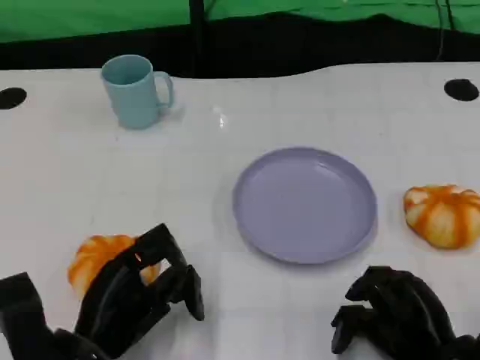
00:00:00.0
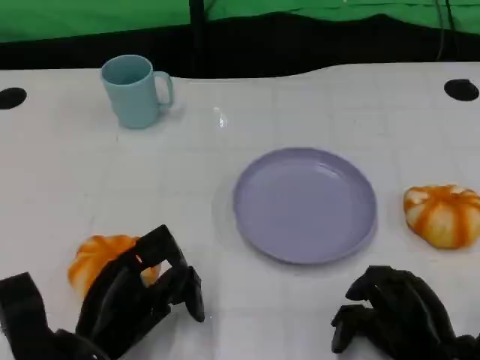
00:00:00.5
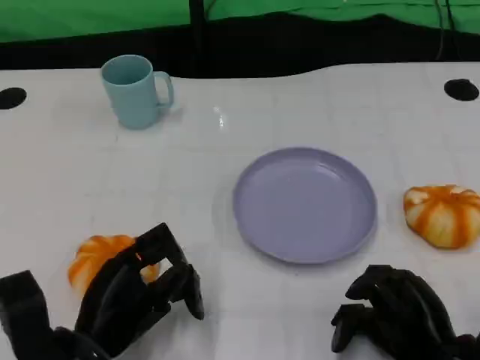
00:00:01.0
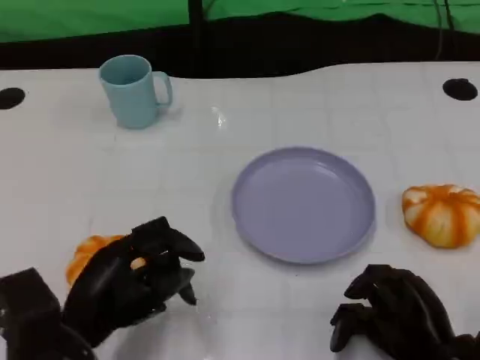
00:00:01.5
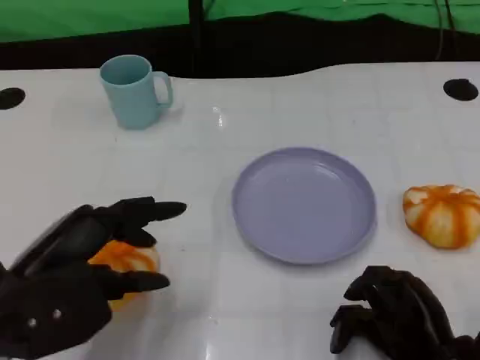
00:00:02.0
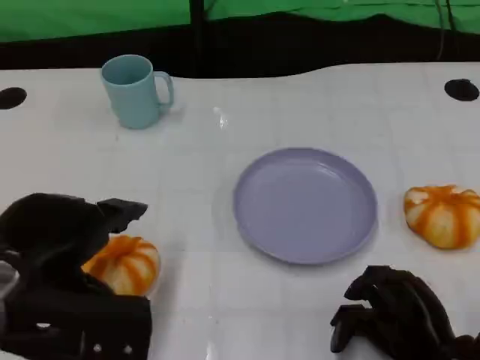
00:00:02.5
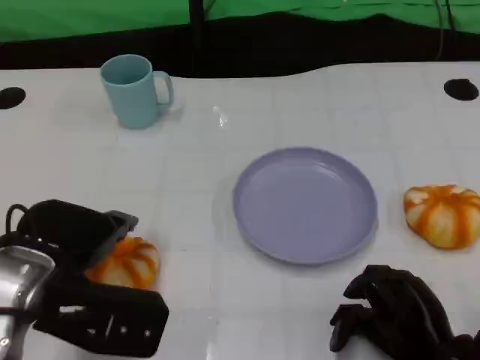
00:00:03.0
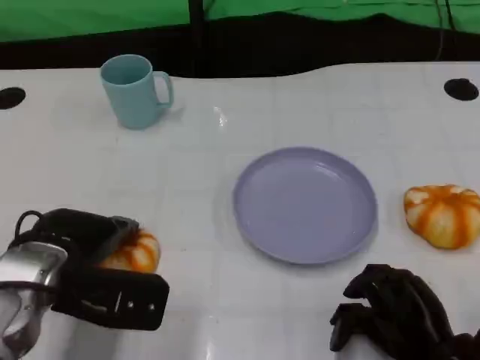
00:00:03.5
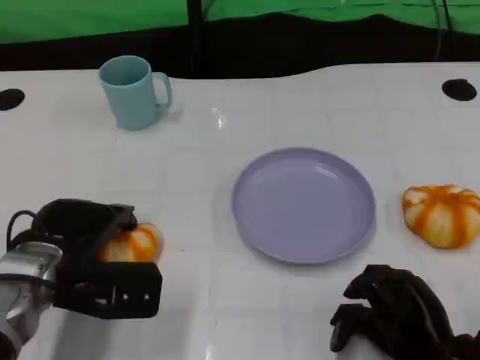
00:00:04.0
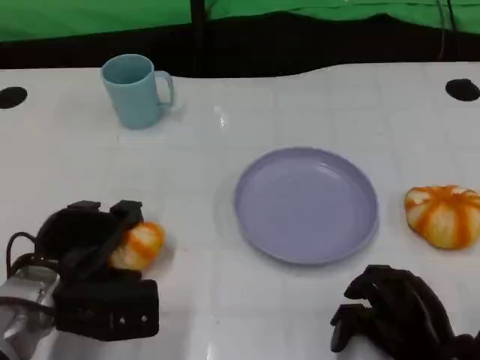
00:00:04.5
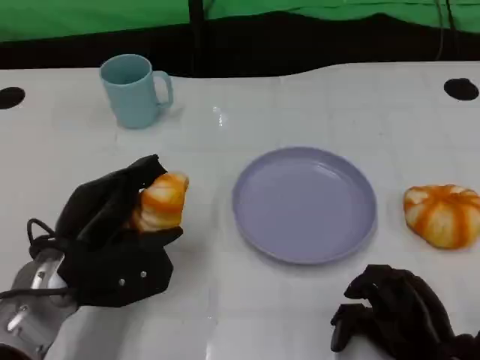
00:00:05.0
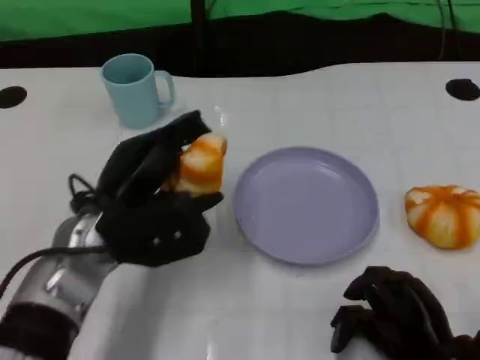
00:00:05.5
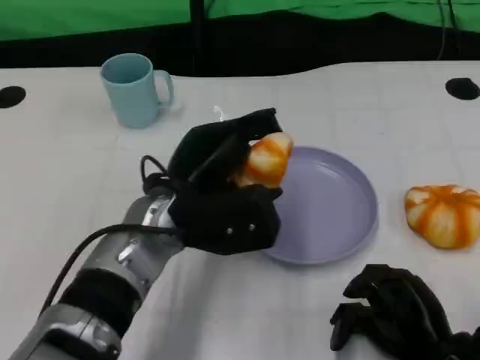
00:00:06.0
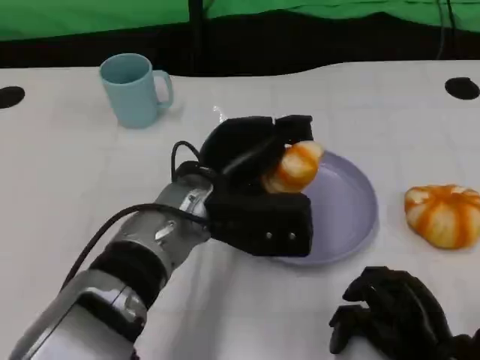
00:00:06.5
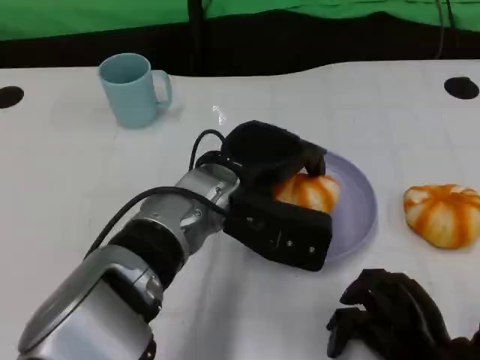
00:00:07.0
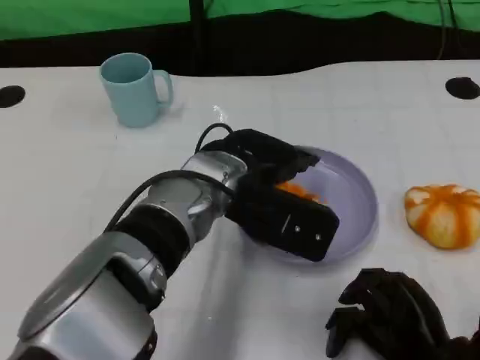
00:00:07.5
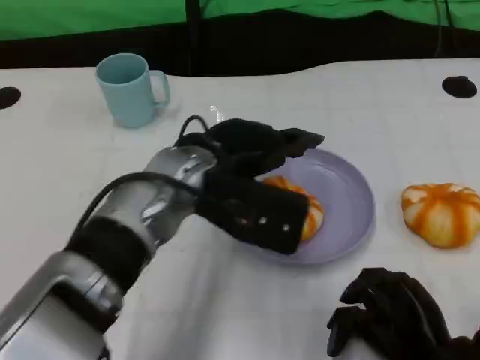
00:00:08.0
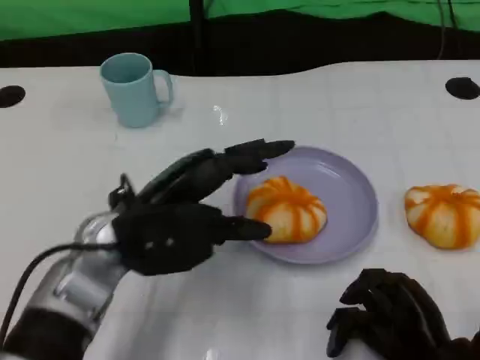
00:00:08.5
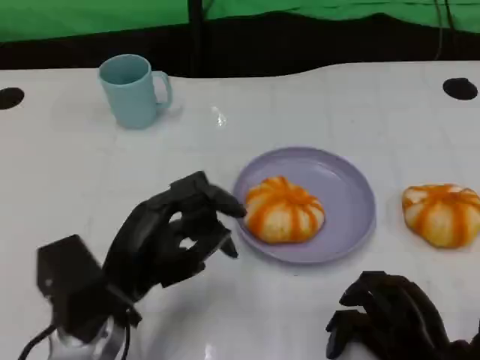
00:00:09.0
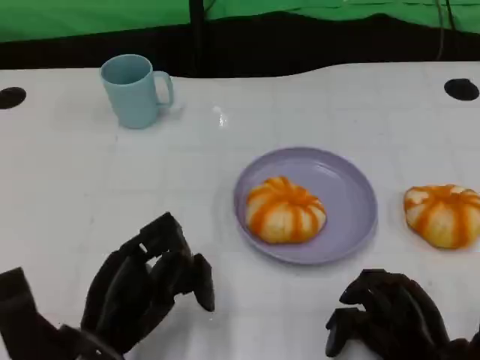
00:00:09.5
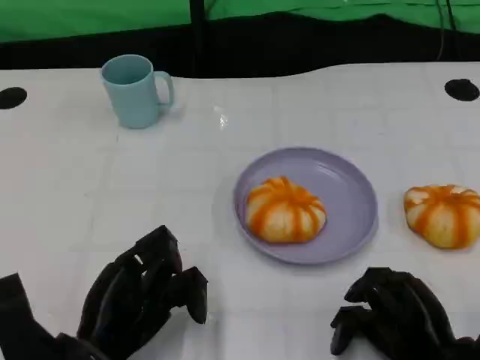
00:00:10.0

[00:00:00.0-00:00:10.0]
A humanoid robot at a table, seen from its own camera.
Task of the whole recording: Grasp the bread from the table and place it into the plate.
00:00:00.0 to 00:00:02.0: The left hand goes roughly 10 cm upward.
00:00:02.0 to 00:00:04.0: The left hand heads forward and downward, covering about 10 cm.
00:00:04.0 to 00:00:06.0: The left hand moves to the right, approximately 15 cm.
00:00:08.0 to 00:00:10.0: The left hand shifts some 20 cm backward, downward and to the left.

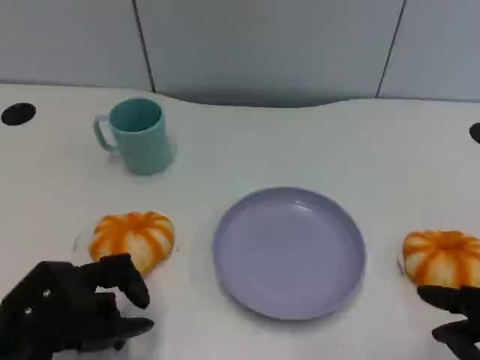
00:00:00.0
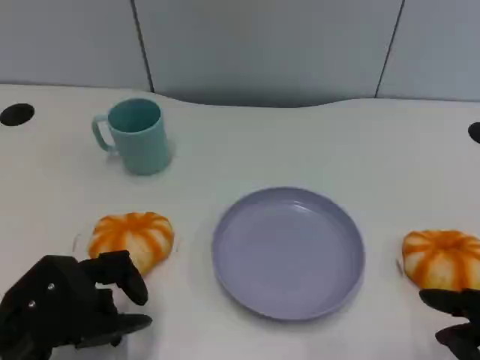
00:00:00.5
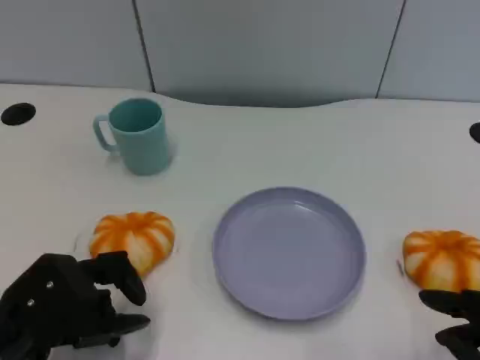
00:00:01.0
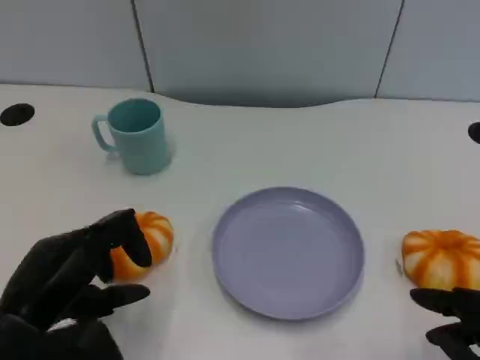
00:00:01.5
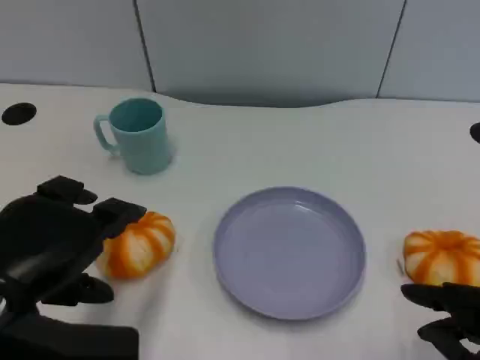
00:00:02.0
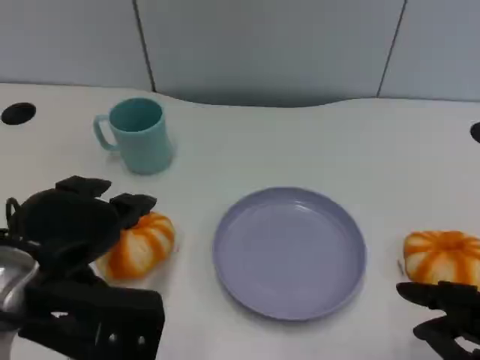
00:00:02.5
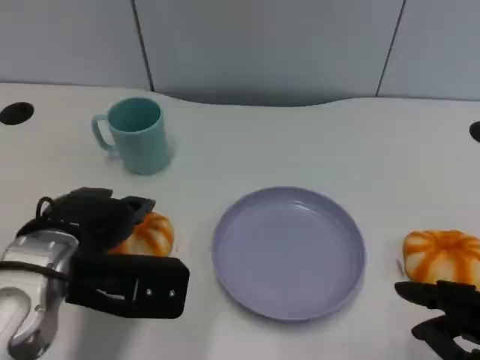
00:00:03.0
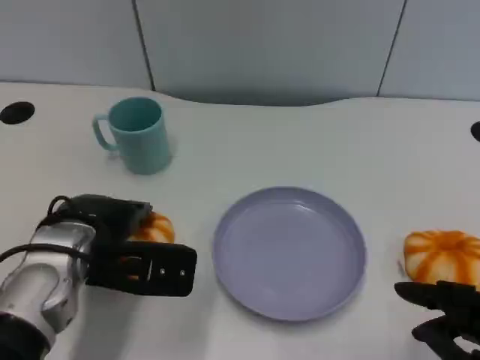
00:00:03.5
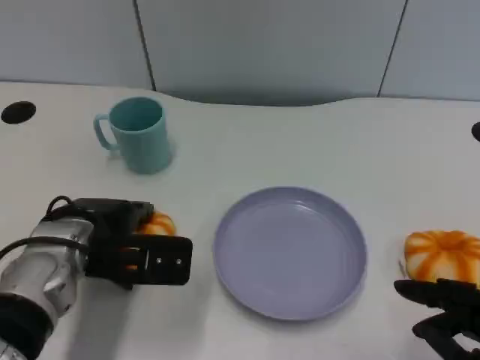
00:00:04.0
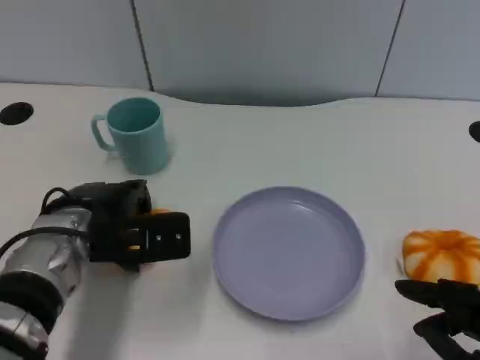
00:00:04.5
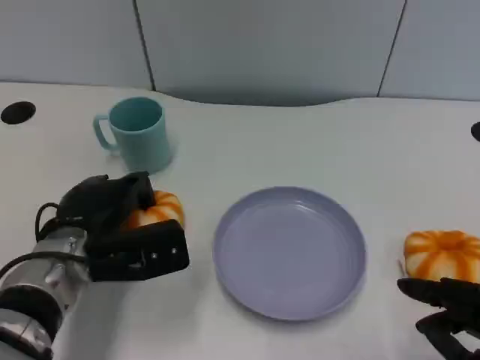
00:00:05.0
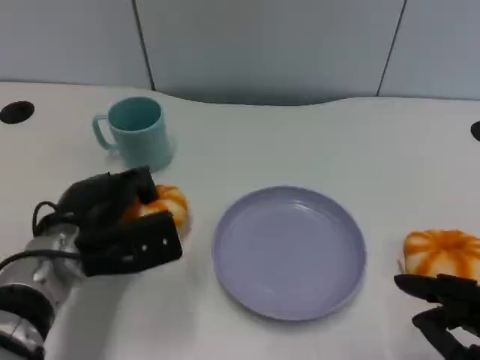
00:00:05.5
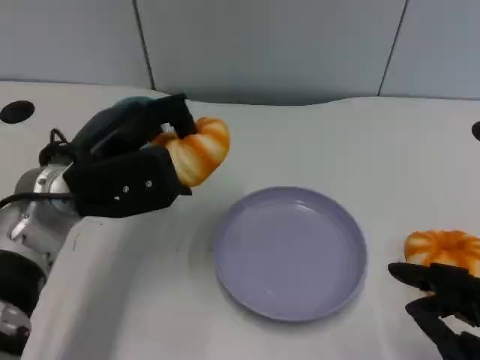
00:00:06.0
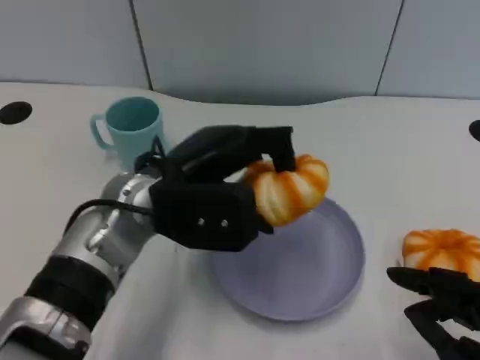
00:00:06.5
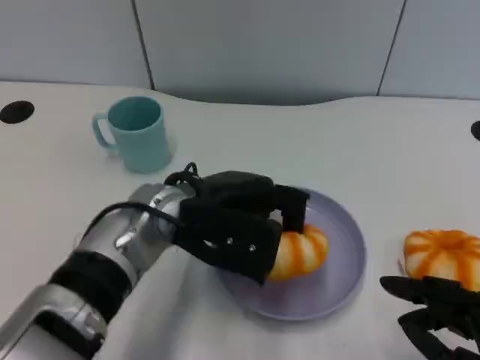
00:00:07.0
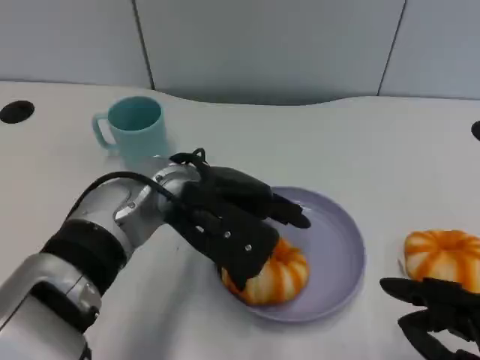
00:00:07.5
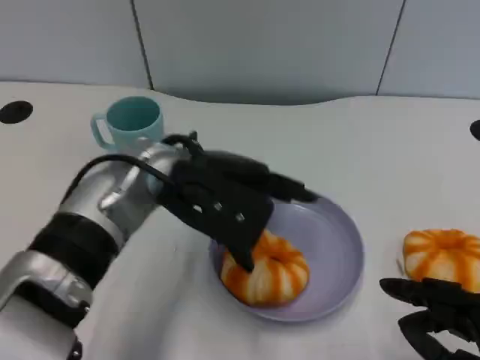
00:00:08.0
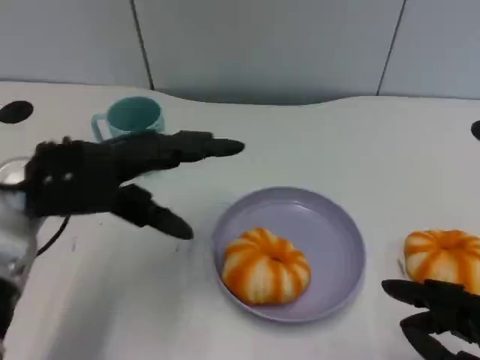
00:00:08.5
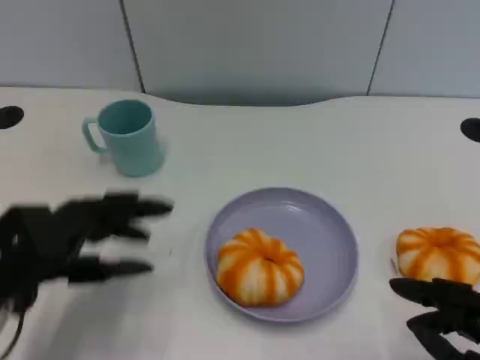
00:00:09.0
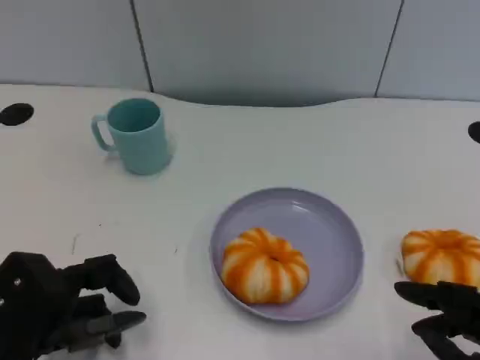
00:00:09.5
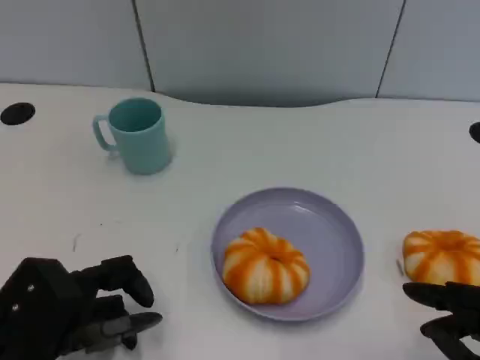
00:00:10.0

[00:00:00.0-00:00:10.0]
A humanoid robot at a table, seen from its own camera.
Task of the whole recording: Grasp the bread from the table and place it into the plate.
00:00:00.0 to 00:00:02.0: The left hand heads upward, covering some 10 cm.
00:00:02.0 to 00:00:04.0: The left hand travels forward and downward by roughly 15 cm.
00:00:04.0 to 00:00:06.0: The left hand shifts some 5 cm upward.
00:00:06.0 to 00:00:08.0: The left hand heads to the right, covering about 10 cm.
00:00:08.0 to 00:00:10.0: The left hand travels to the left, backward and downward by roughly 20 cm.

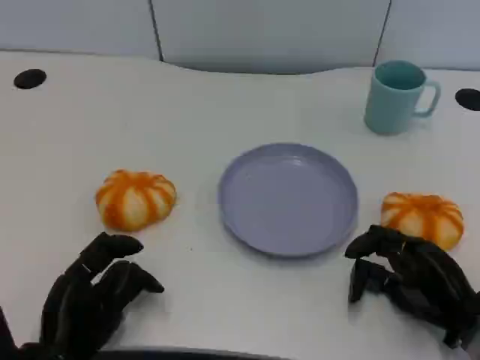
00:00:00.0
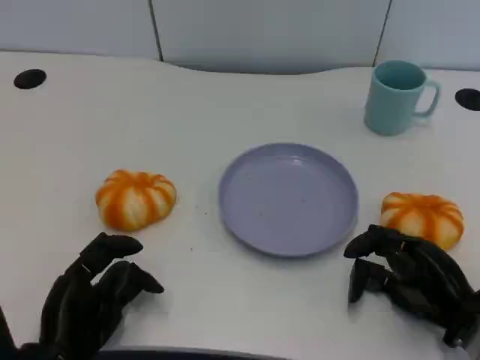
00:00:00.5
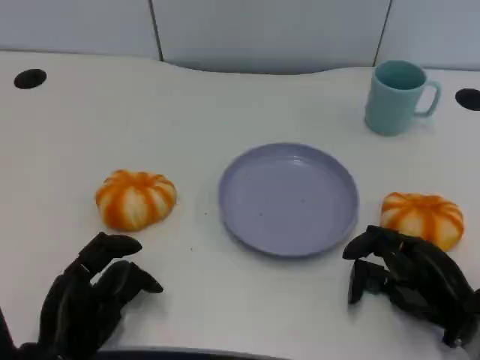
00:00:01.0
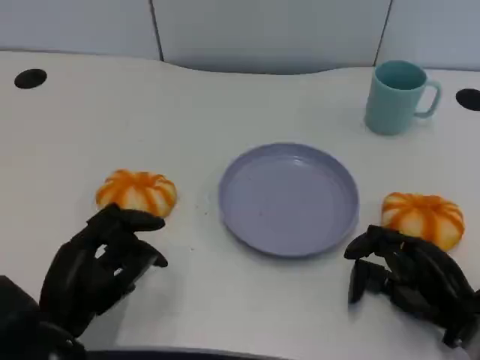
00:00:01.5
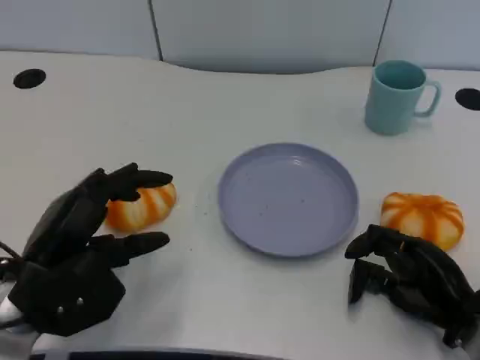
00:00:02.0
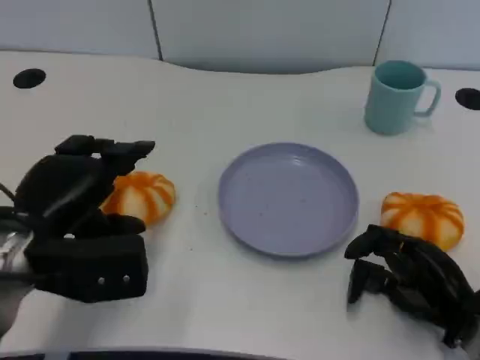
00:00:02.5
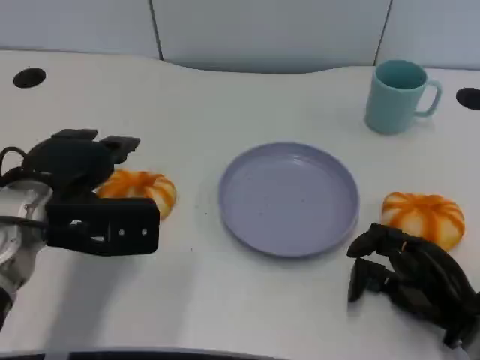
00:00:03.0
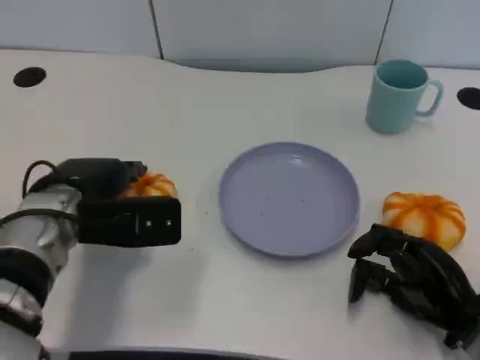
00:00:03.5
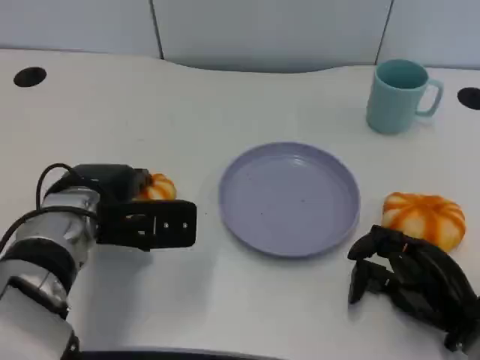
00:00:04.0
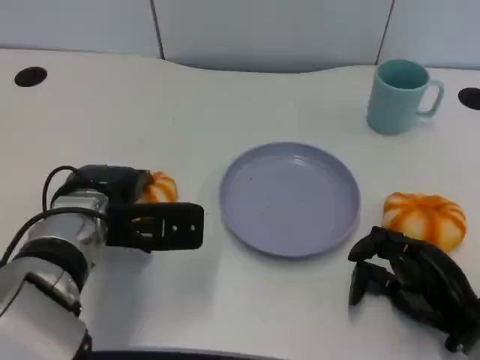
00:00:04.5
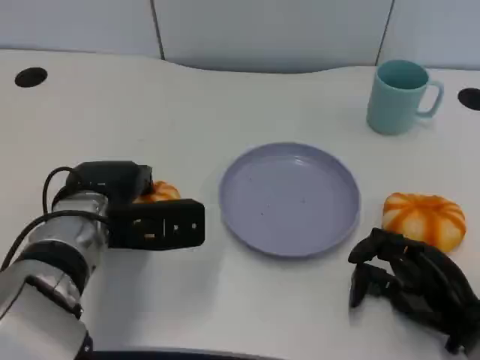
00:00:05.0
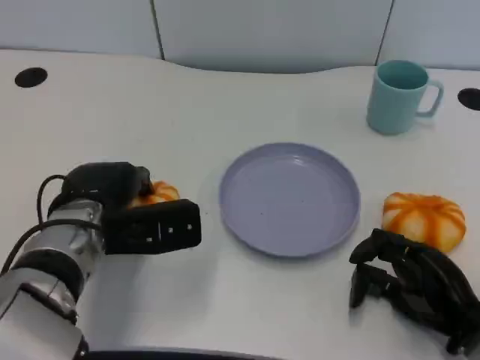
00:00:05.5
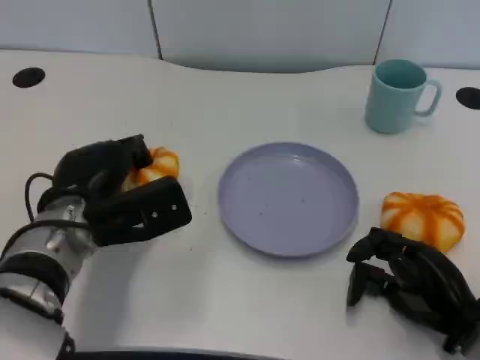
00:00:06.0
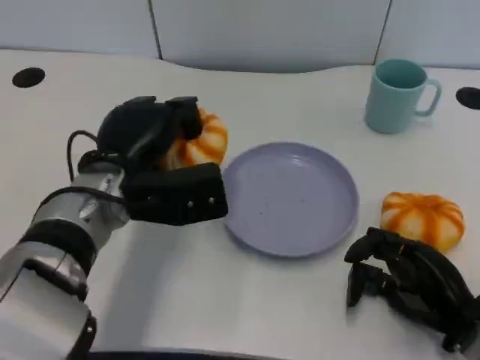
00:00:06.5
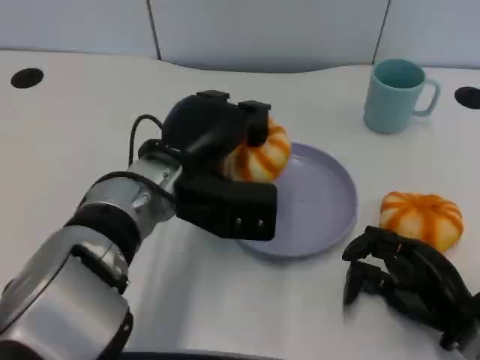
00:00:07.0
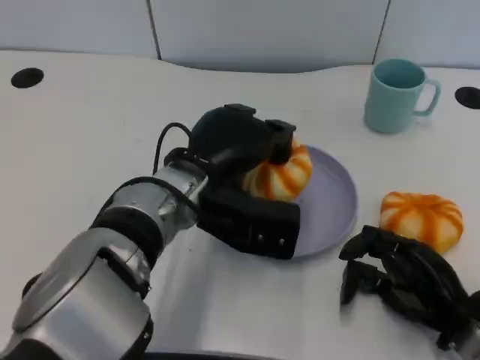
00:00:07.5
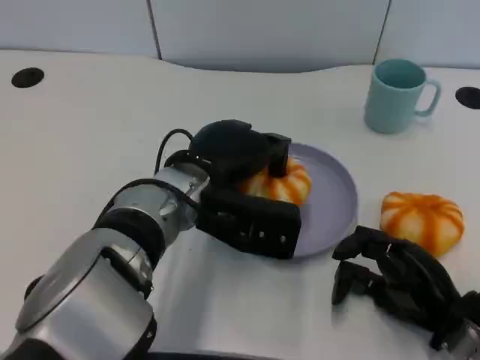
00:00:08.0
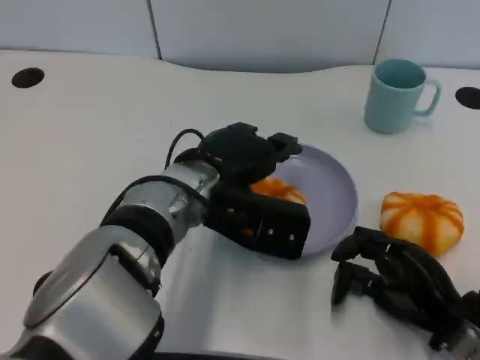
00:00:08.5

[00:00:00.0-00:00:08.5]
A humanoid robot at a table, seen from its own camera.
Task of the whole recording: Grasp the bread from the table and place it into the plate.
00:00:00.0 to 00:00:02.0: The left hand goes about 10 cm upward.
00:00:02.0 to 00:00:04.0: The left hand moves forward and to the right, approximately 10 cm.
00:00:06.5 to 00:00:08.5: The left hand goes about 10 cm to the right.
